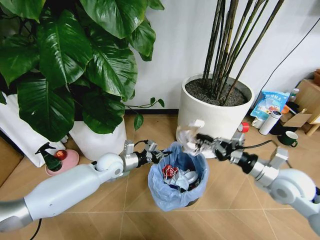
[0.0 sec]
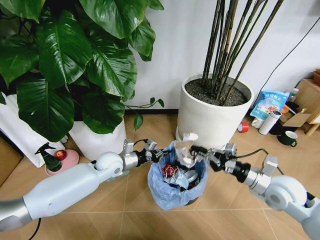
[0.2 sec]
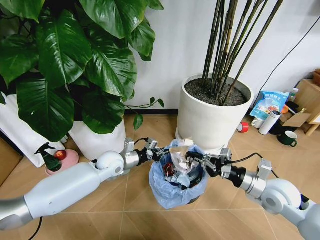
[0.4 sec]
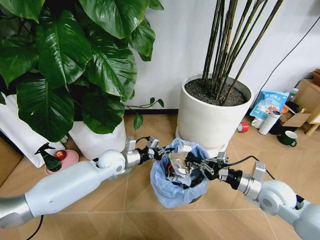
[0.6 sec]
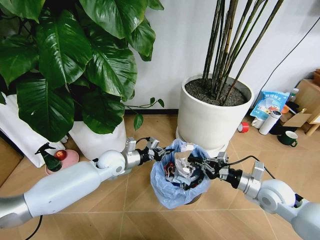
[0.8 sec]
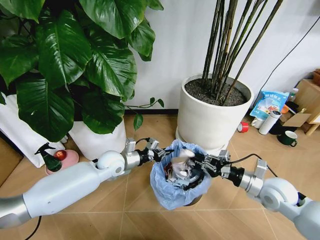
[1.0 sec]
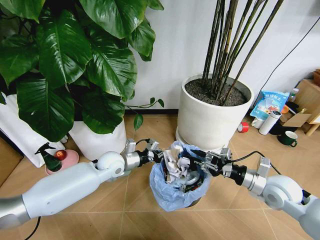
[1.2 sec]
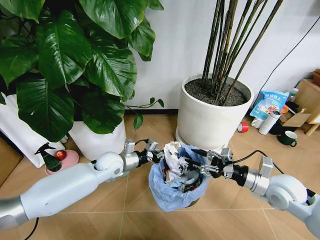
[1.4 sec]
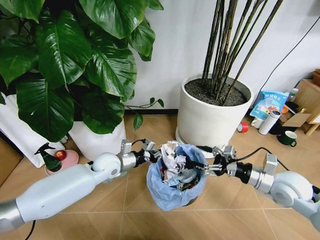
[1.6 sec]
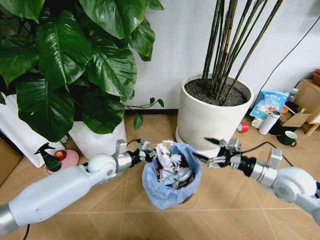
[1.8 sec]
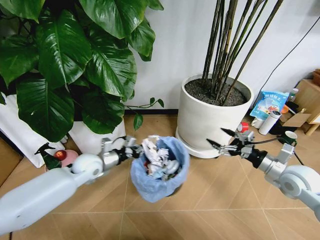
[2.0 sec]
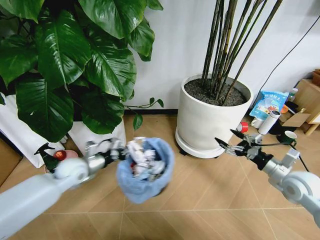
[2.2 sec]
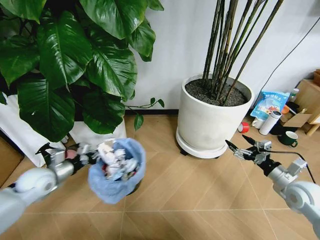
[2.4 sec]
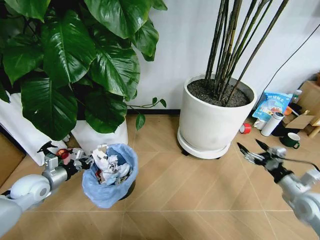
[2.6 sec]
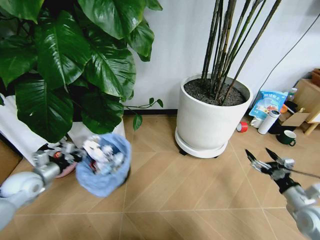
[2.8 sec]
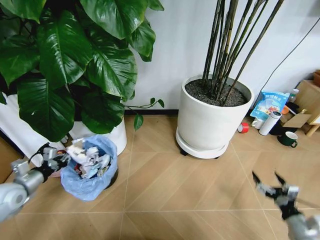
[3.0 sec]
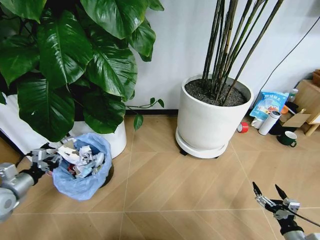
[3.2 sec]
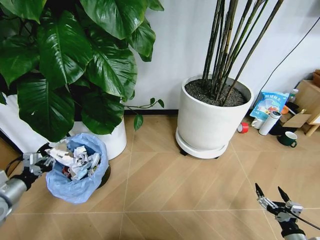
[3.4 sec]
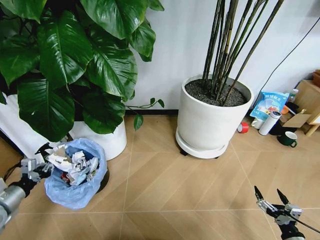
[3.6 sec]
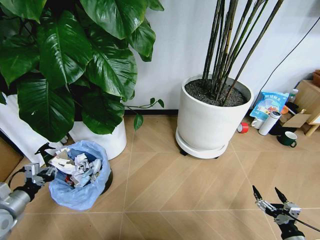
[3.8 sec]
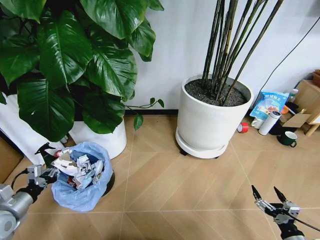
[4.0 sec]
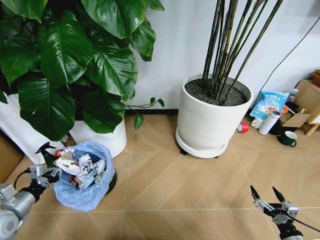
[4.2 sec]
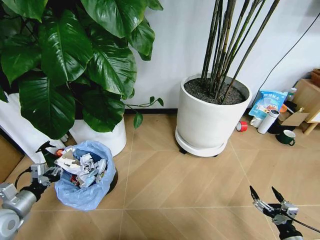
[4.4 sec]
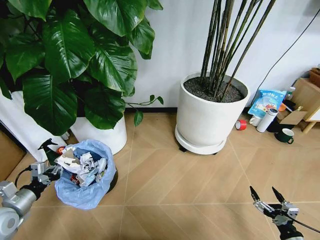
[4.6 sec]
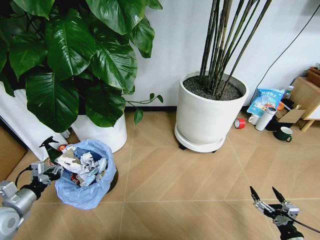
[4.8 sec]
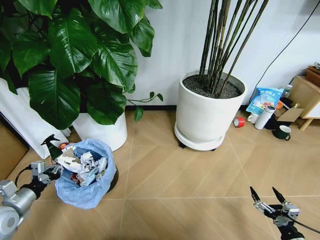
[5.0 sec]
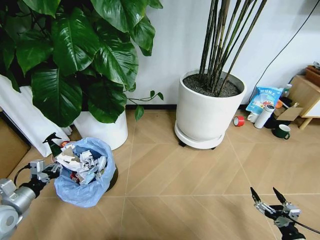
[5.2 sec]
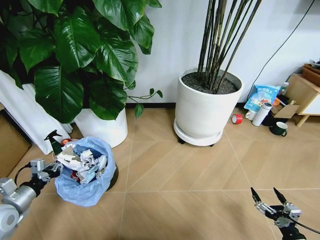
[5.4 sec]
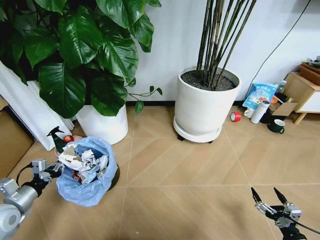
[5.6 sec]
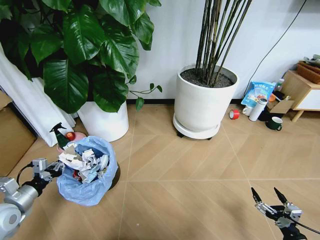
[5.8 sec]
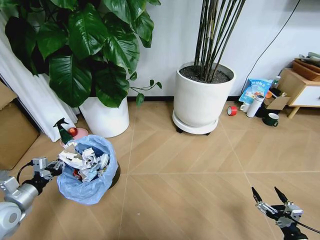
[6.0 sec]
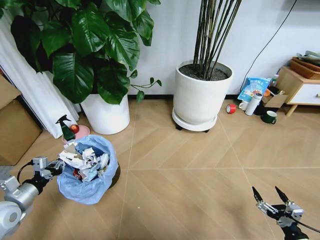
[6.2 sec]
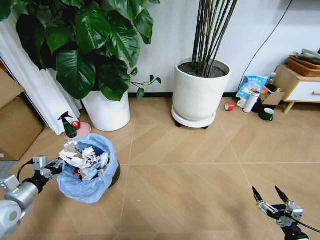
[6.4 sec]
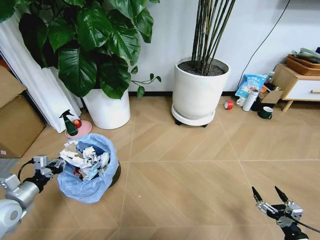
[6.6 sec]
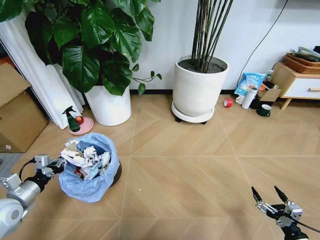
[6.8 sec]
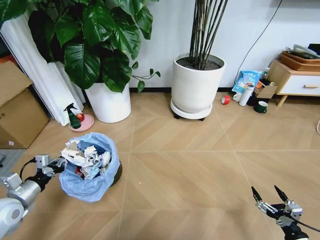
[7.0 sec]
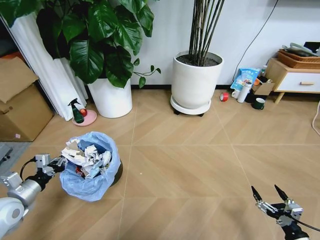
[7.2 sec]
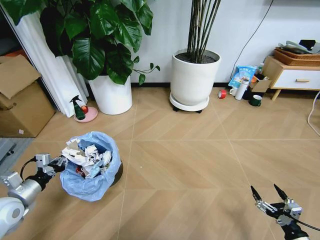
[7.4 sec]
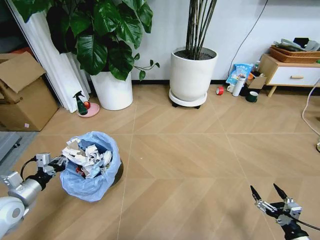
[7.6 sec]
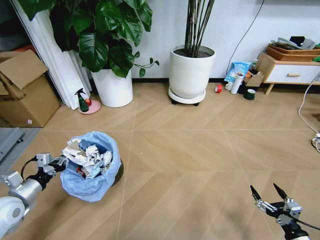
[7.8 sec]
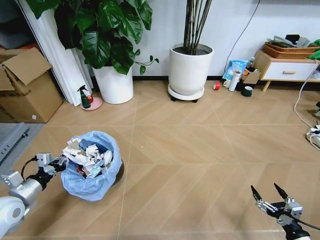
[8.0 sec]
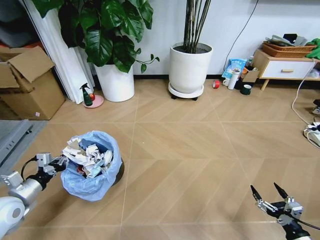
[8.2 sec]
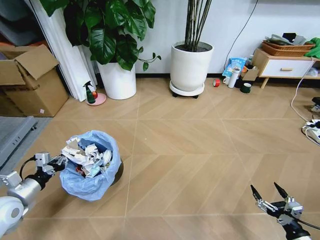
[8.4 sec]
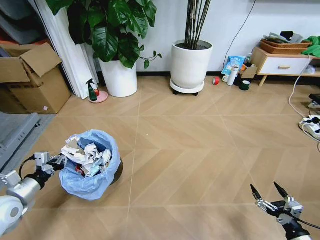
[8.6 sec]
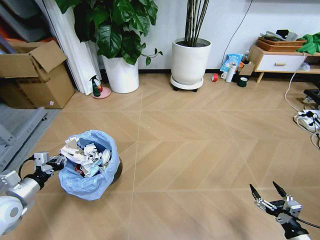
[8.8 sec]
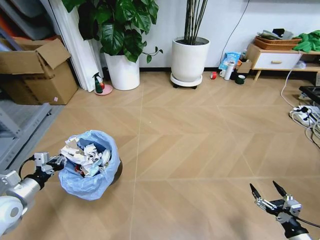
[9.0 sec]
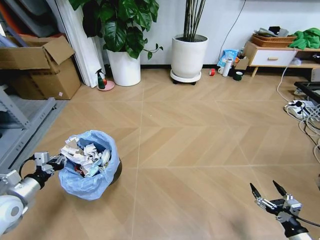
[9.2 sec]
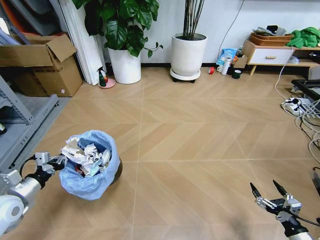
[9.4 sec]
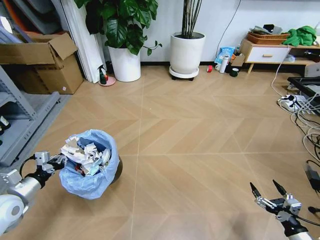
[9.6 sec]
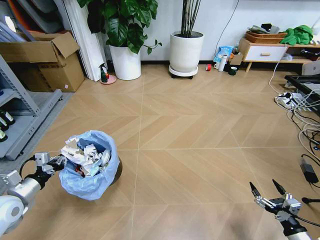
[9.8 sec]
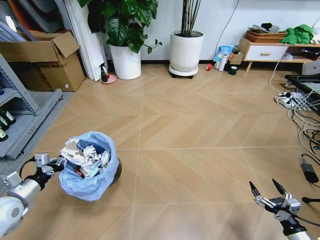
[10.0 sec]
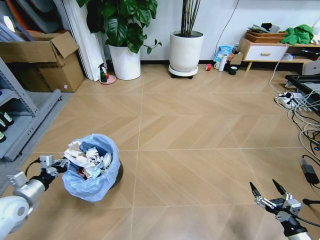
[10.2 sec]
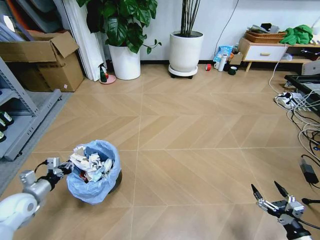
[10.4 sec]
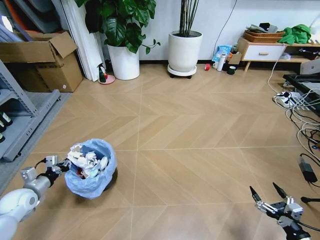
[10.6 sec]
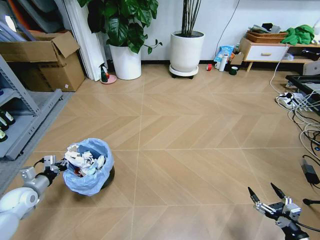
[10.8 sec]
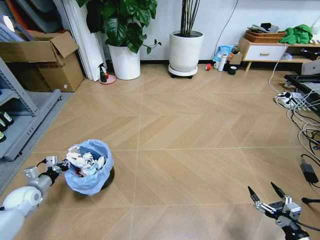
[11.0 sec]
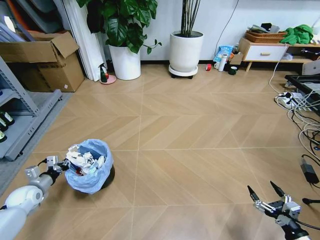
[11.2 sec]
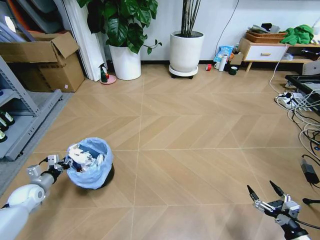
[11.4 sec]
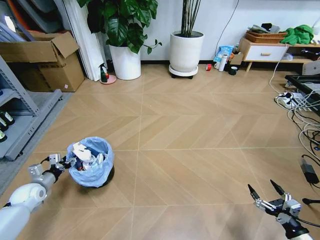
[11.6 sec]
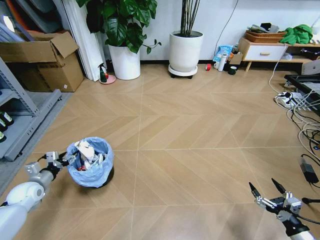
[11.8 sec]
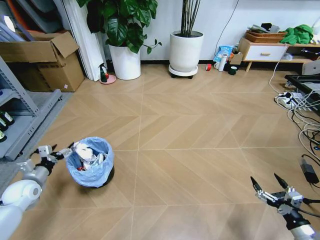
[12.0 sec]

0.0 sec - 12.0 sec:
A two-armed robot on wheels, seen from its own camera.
Task of the whole recording: Pick up the trash bin and place the garbage on the floor into it.
0.0 sec - 1.6 sec: The right gripper opens its fingers.
1.6 sec - 3.0 sec: The right gripper shifts about 25 cm downward, backward and to the right; the left gripper moves to the left, approximately 30 cm.
3.0 sec - 4.4 sec: The left gripper travels backward by roughly 5 cm. The right gripper moves approximately 5 cm.
9.0 sec - 10.4 sec: The left gripper heads downward, covering roughly 5 cm.
10.4 sec - 12.0 sec: The left gripper opens up.

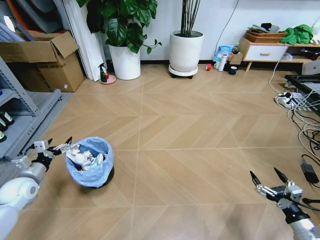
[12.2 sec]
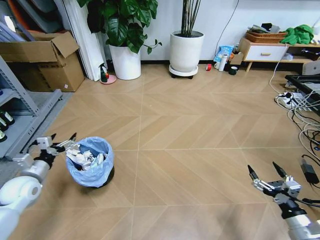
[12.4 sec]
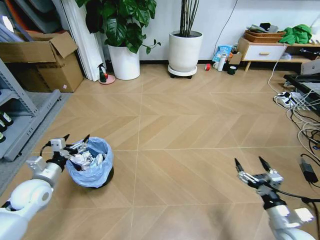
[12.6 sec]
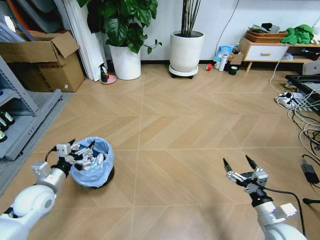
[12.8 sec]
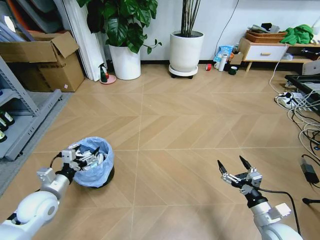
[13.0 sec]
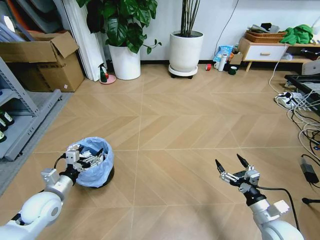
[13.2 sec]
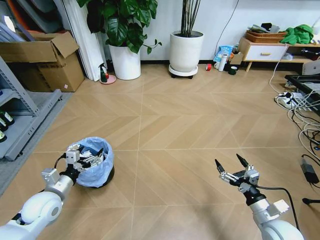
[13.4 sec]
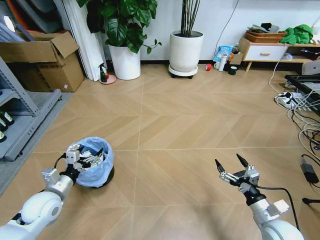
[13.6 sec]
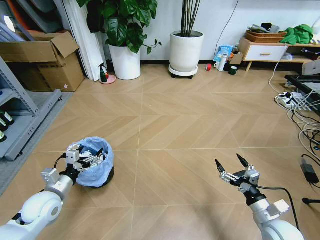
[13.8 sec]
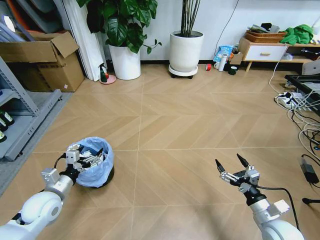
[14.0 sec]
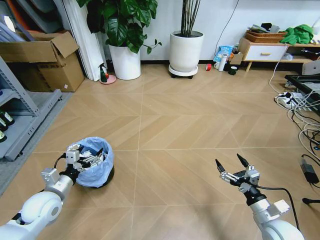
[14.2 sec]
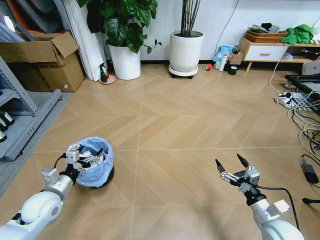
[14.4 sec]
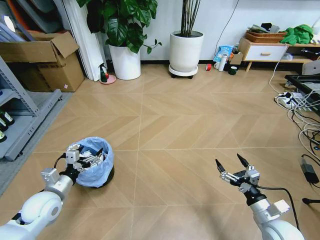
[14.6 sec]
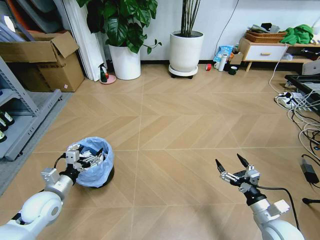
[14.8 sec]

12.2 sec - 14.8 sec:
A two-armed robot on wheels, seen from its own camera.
Task of the whole recording: Pick up the trash bin and place the garbage on the floor into it.
12.2 sec - 13.4 sec: The right gripper heads to the left and forward, covering approximately 10 cm, while the left gripper shifts some 10 cm to the right and backward.
13.4 sec - 14.8 sec: Neither gripper changes place.
